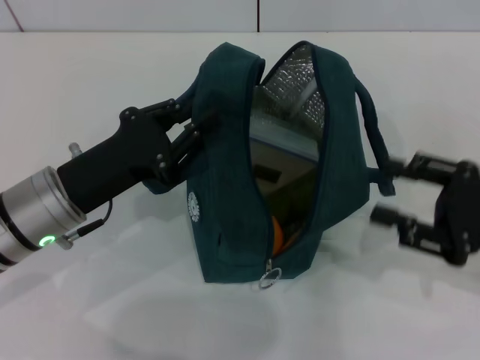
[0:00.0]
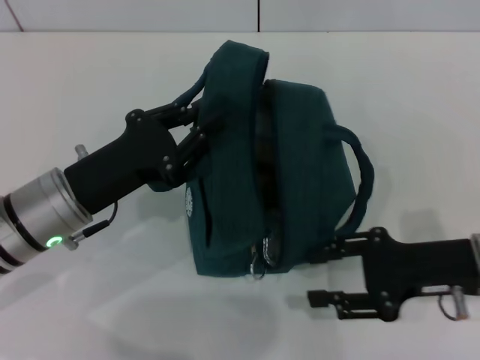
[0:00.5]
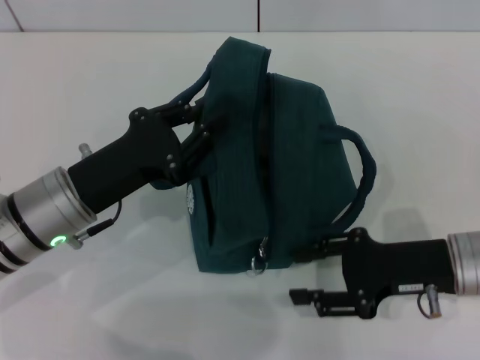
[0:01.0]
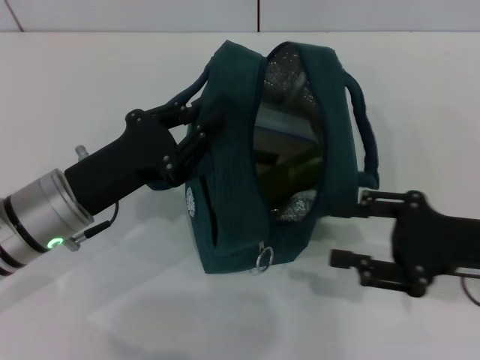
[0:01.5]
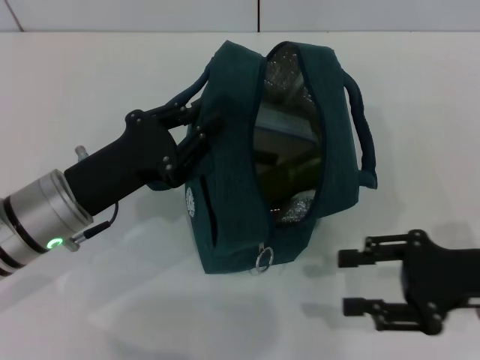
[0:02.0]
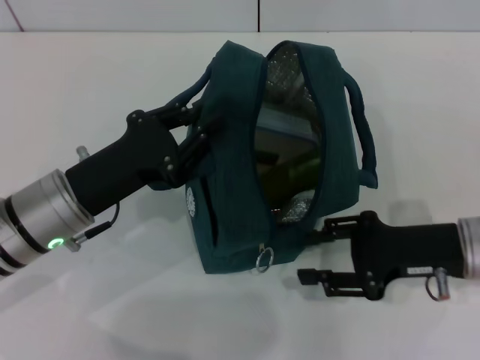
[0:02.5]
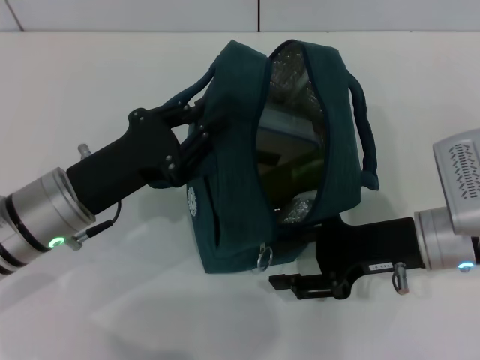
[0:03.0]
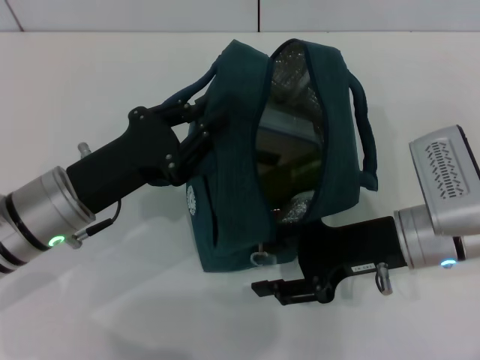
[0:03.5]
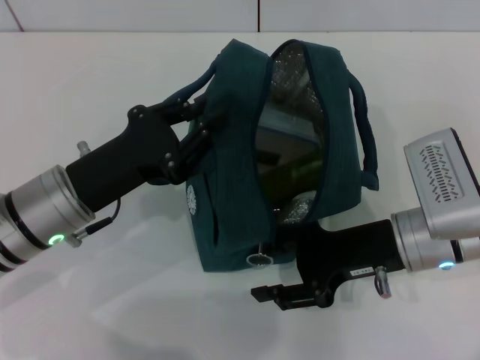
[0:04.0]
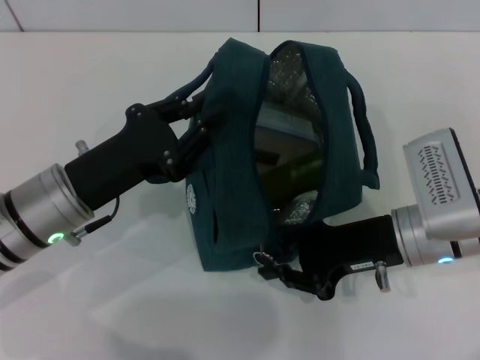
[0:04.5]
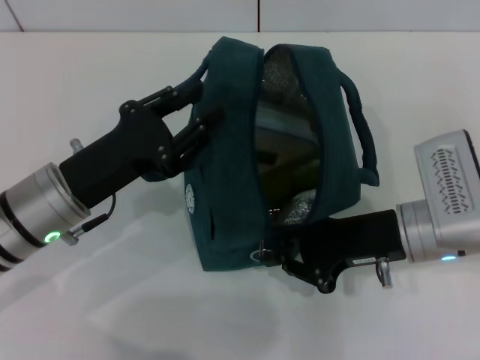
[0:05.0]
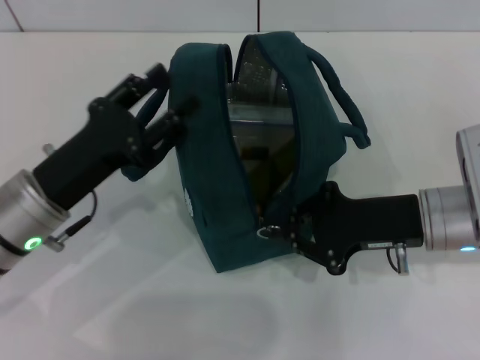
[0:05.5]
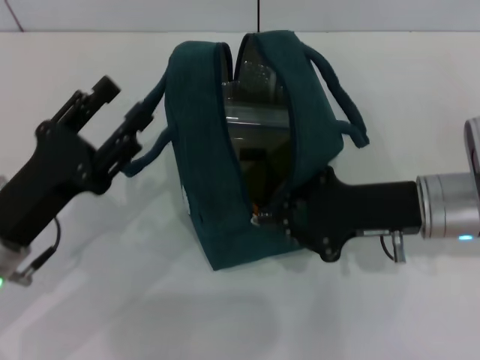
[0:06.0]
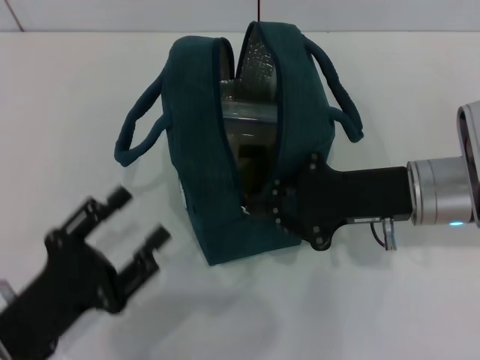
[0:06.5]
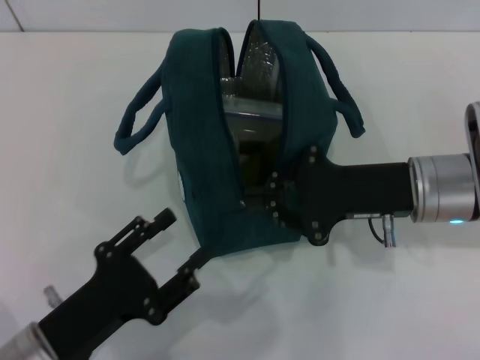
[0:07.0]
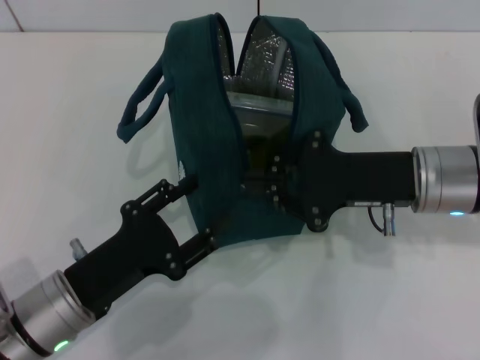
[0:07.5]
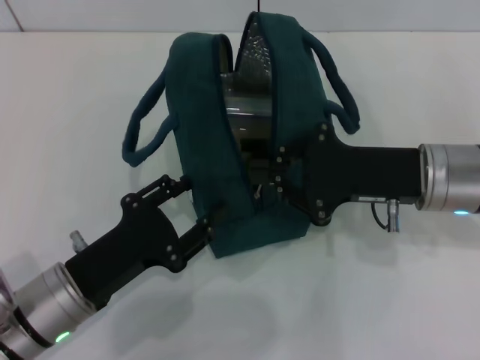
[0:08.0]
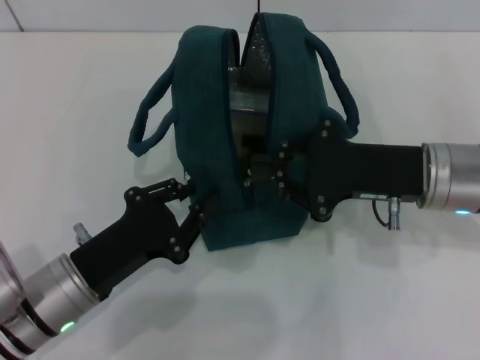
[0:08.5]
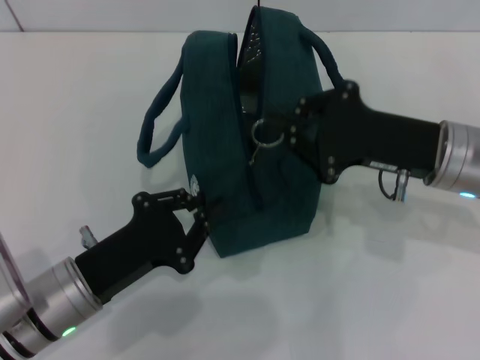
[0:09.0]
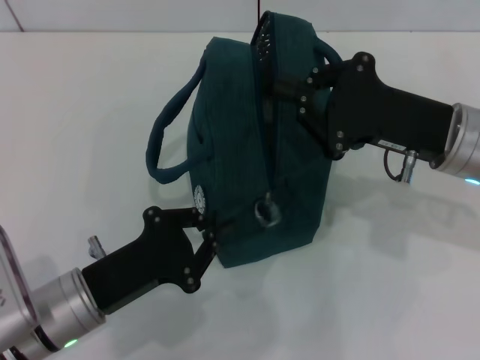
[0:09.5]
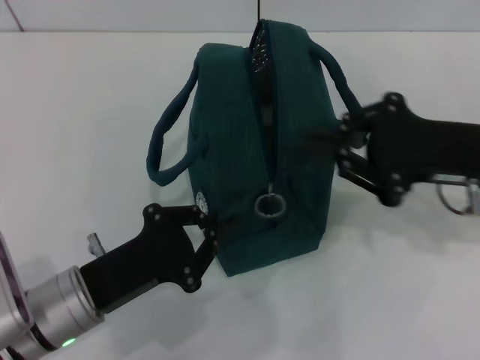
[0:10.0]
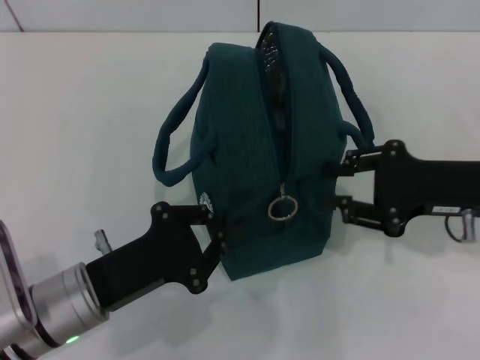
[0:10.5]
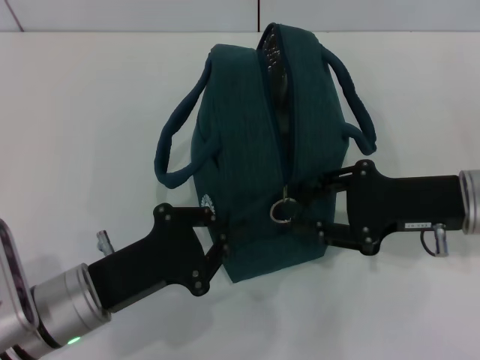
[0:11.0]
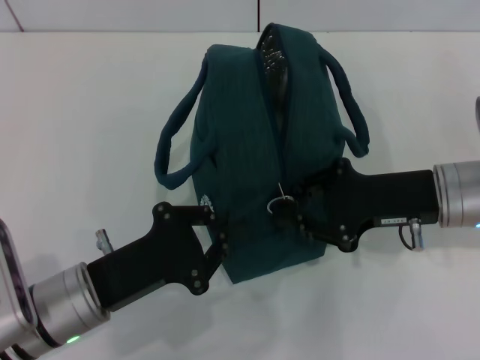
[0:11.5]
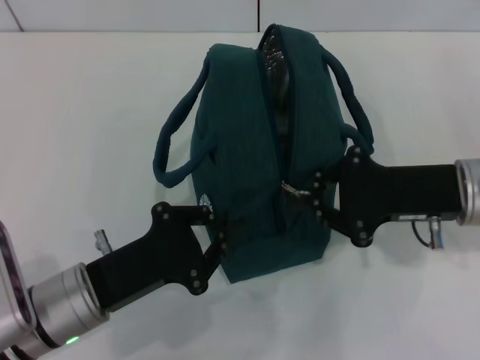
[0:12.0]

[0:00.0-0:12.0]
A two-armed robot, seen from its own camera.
0:02.0 to 0:04.0: The right gripper goes some 10 cm to the left.
0:04.0 to 0:06.0: The left gripper is displaced backward by some 5 cm, and opens, while the right gripper closes up.
0:06.0 to 0:08.0: The left gripper reaches roughly 10 cm backward, then returns.
0:08.0 to 0:10.0: The left gripper closes. The right gripper travels to the right by some 5 cm.
0:10.0 to 0:12.0: The grippers move only a little.

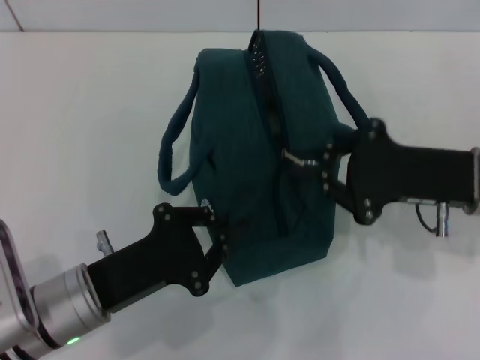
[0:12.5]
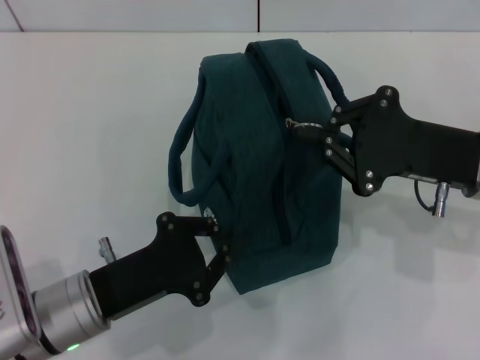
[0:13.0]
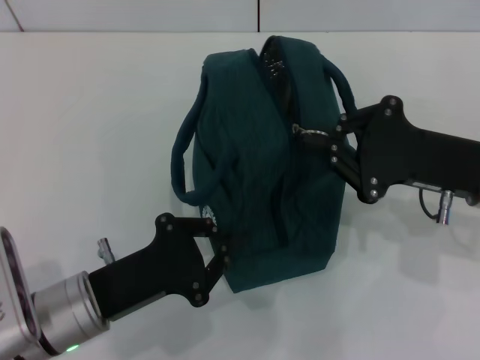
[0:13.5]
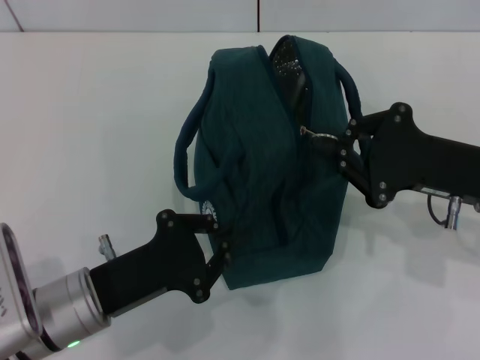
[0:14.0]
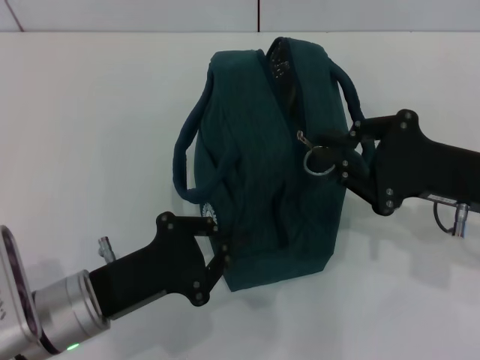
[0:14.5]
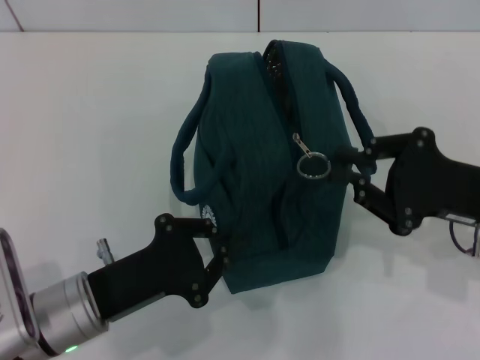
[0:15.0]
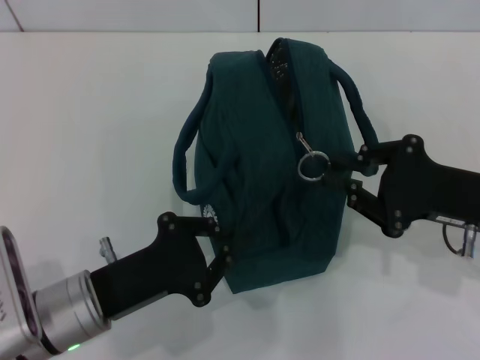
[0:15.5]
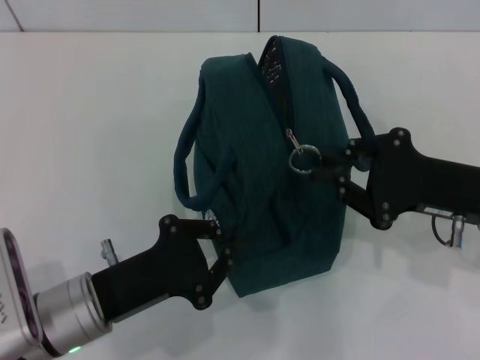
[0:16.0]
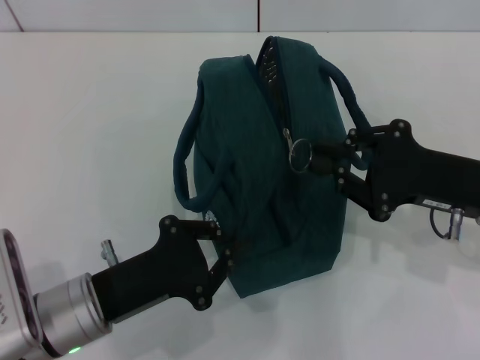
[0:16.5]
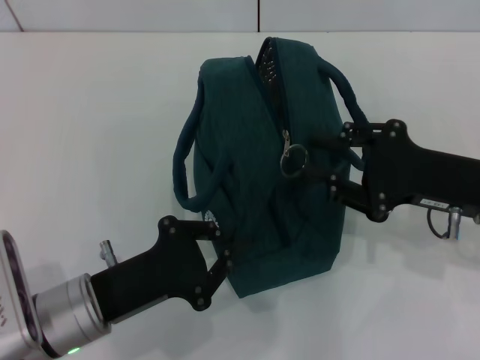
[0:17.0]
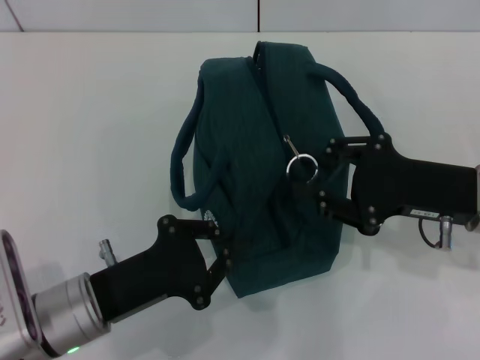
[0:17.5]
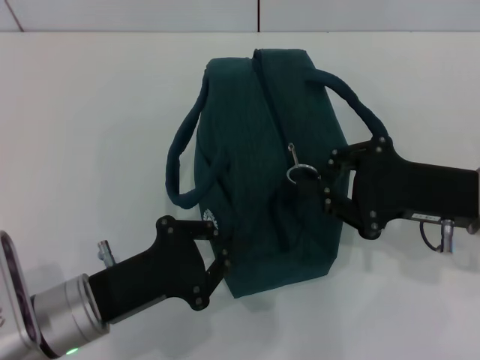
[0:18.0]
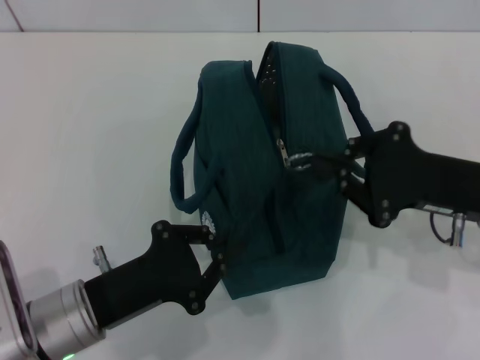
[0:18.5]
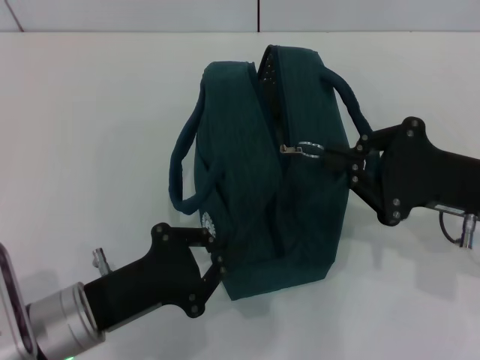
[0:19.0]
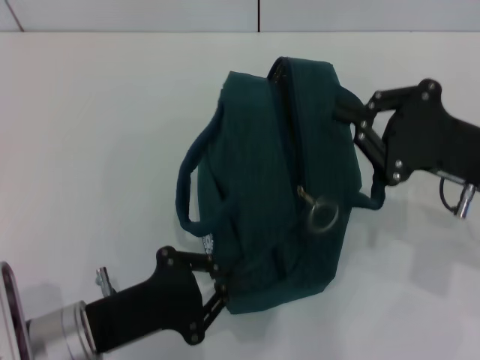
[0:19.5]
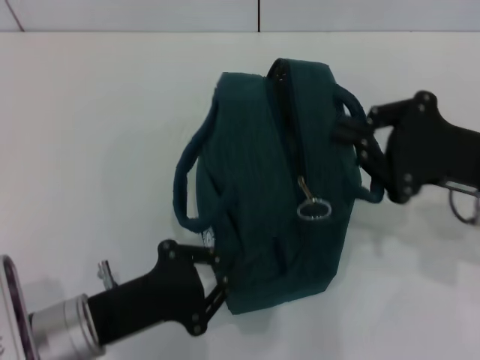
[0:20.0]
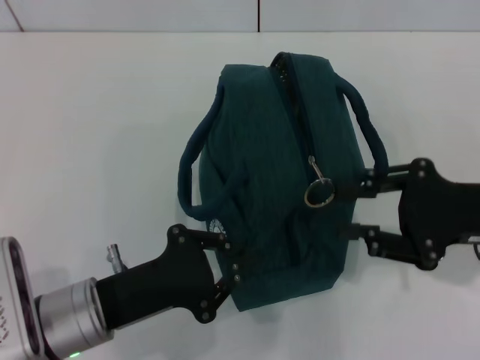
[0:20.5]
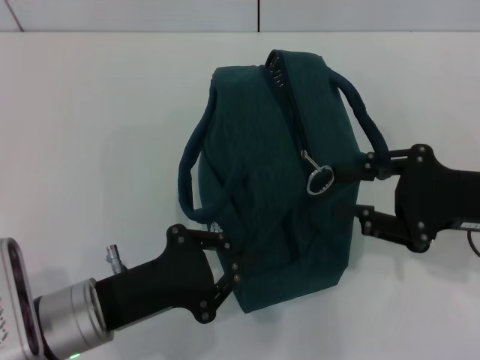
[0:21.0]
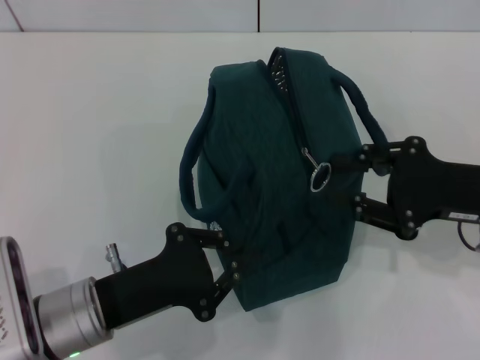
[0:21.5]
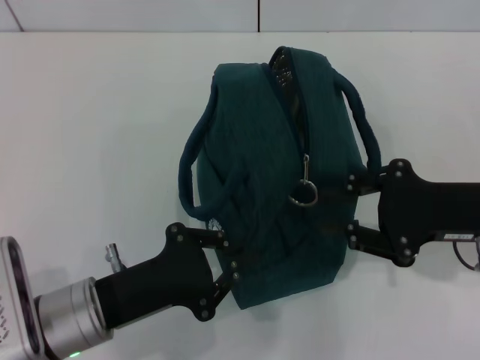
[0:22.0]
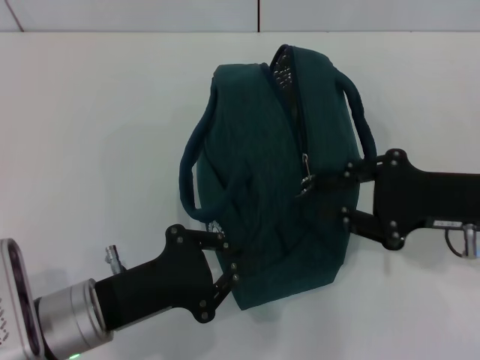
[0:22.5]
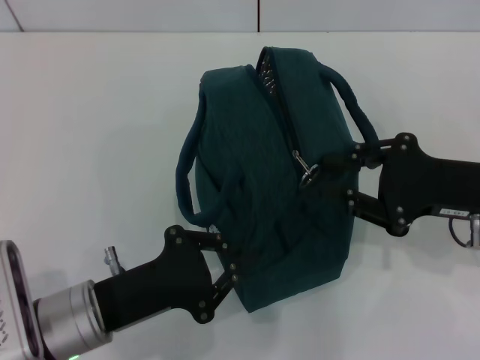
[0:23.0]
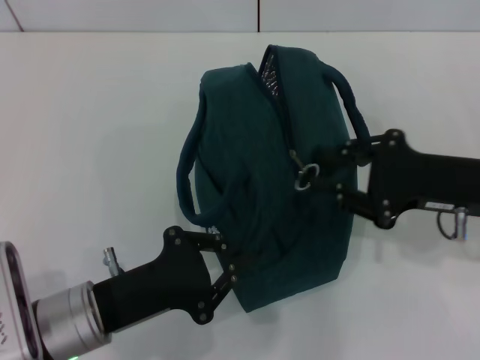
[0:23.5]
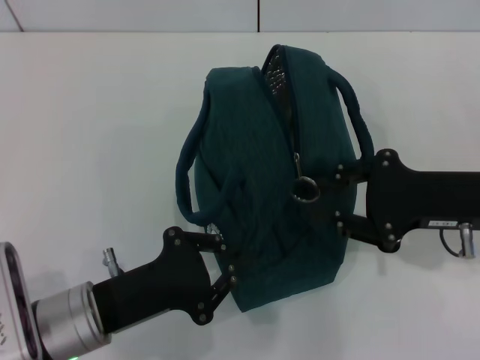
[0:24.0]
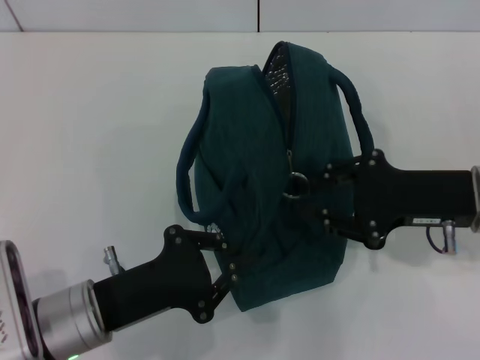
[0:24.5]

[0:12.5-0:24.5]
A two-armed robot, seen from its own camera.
0:12.5 to 0:24.5: The grippers stay close to where they were, moving slightly.

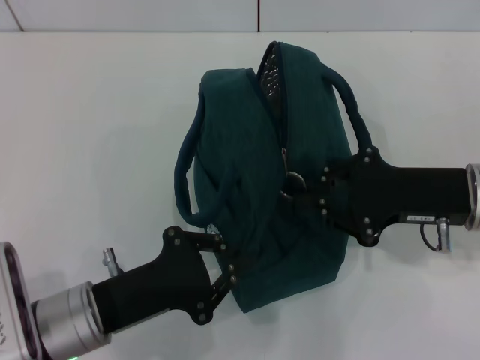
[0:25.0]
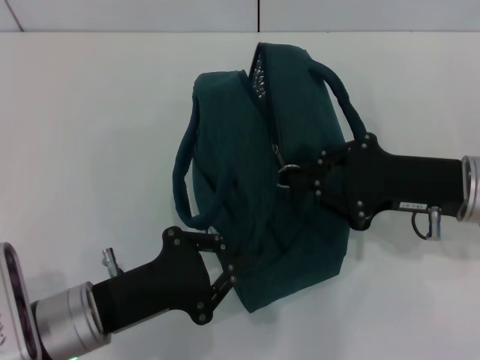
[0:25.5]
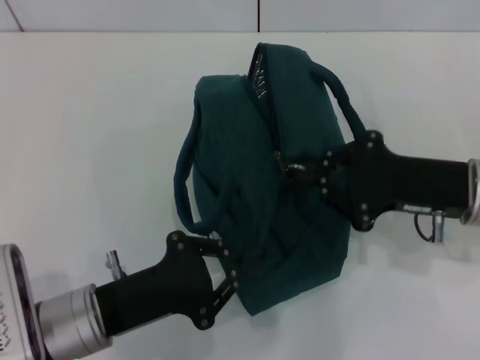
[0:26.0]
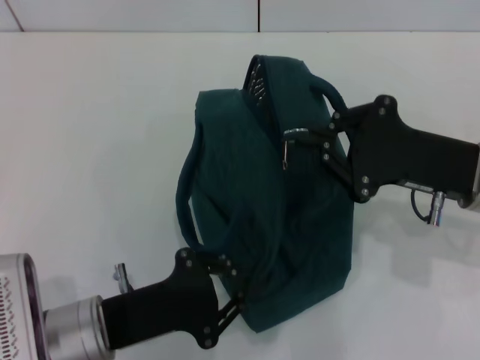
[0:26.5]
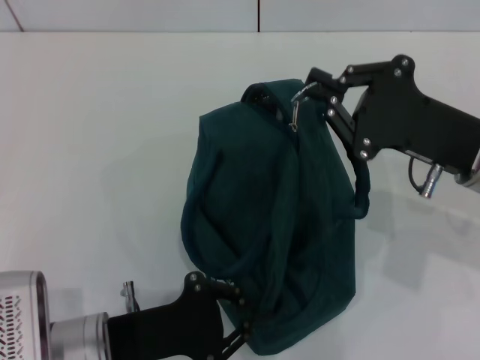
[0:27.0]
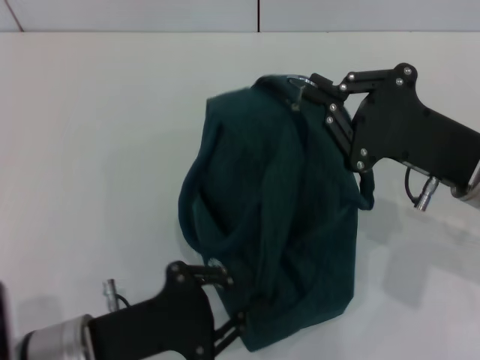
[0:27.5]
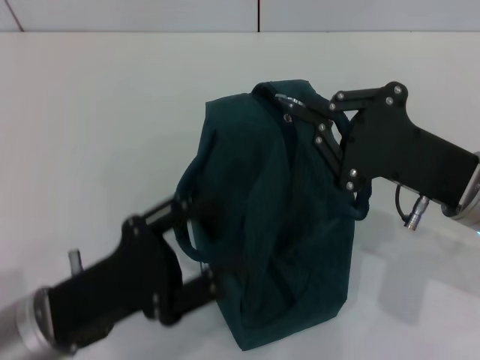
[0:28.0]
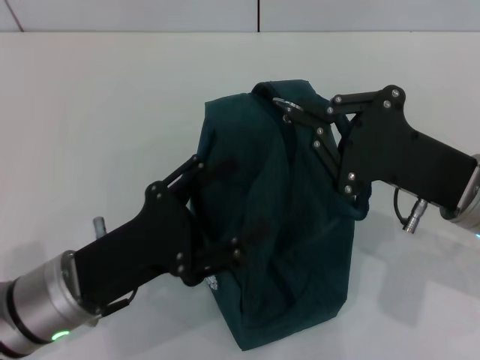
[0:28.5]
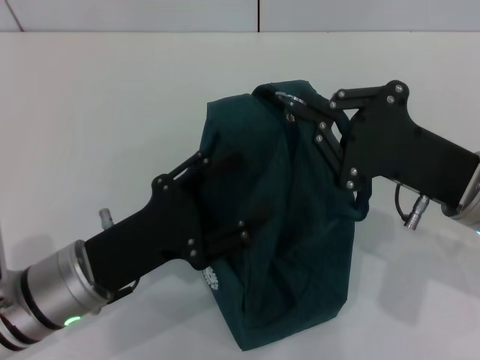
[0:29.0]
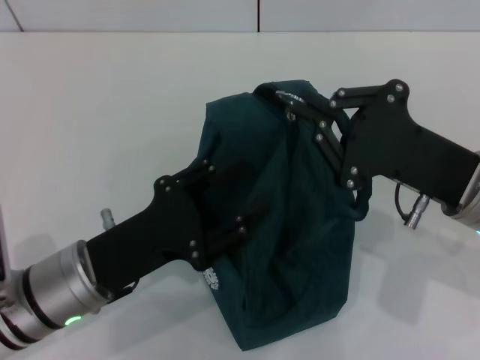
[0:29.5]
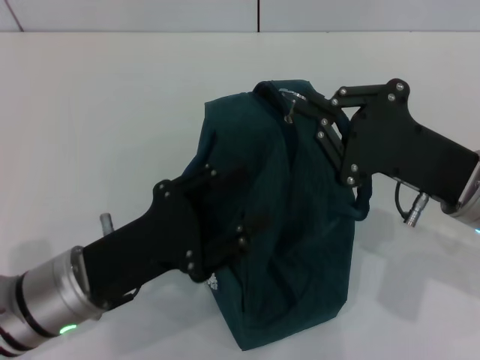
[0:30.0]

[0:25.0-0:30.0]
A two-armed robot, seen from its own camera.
0:27.5 to 0:30.0: The left gripper opens its fingers.
